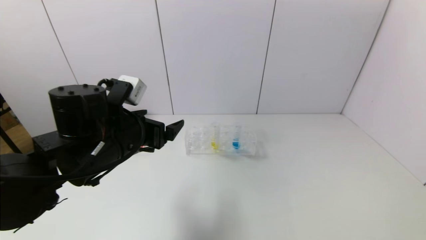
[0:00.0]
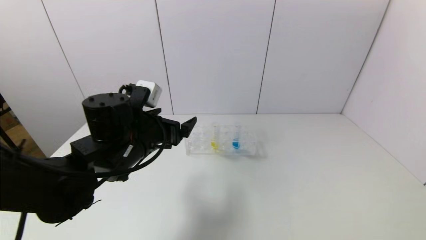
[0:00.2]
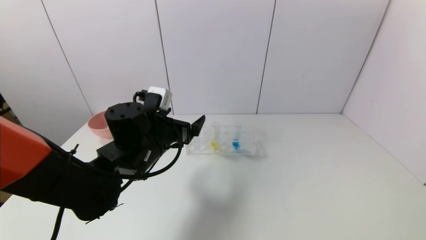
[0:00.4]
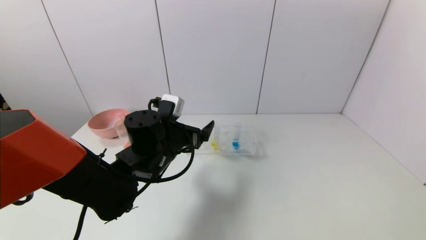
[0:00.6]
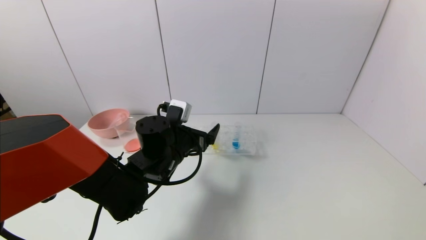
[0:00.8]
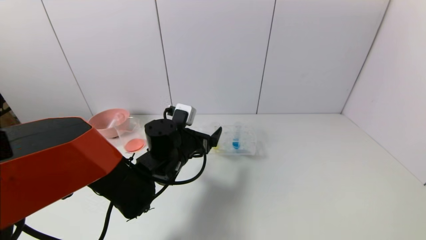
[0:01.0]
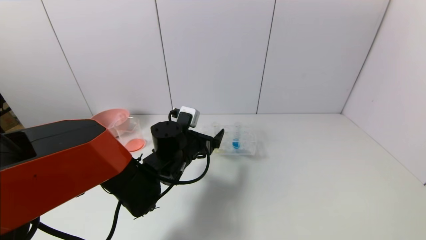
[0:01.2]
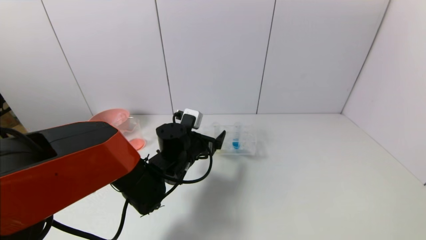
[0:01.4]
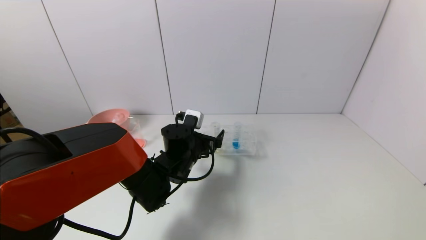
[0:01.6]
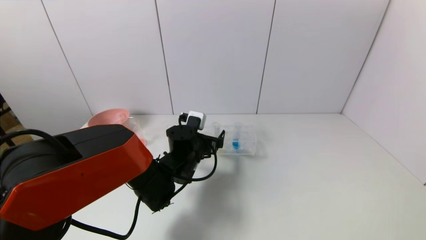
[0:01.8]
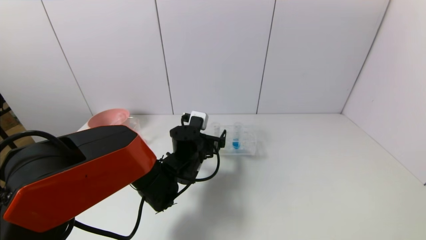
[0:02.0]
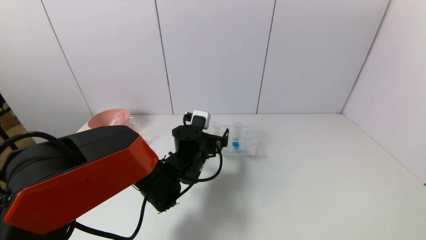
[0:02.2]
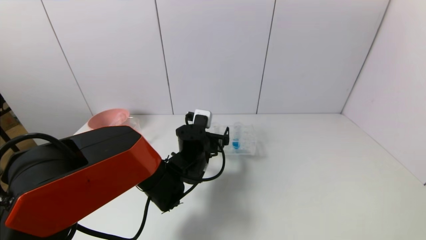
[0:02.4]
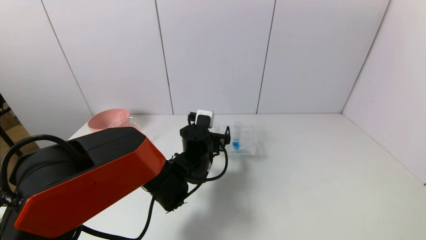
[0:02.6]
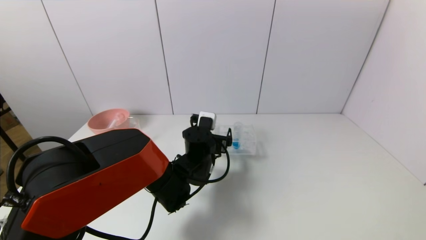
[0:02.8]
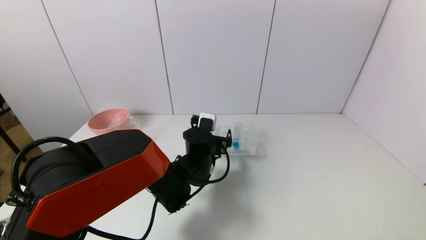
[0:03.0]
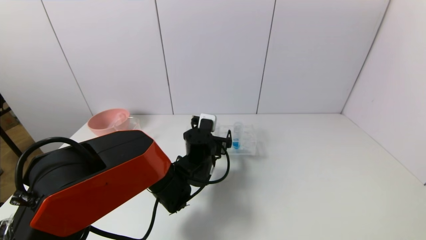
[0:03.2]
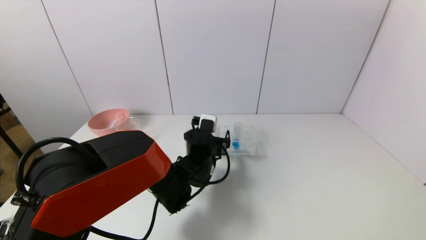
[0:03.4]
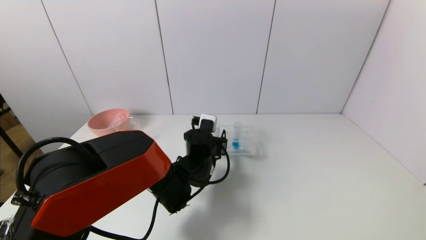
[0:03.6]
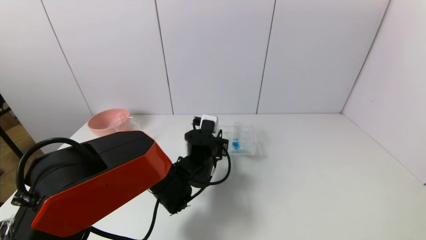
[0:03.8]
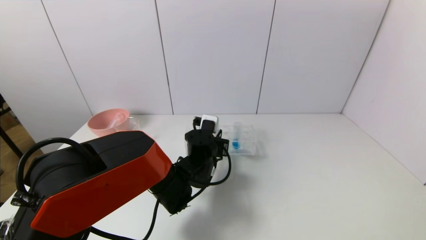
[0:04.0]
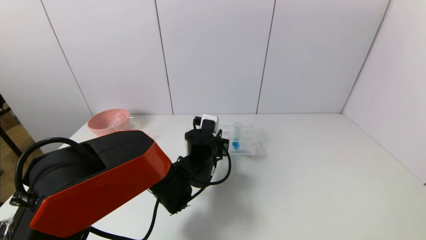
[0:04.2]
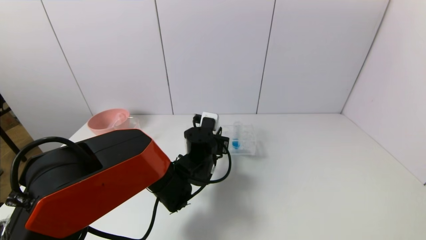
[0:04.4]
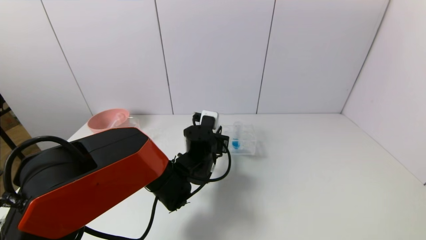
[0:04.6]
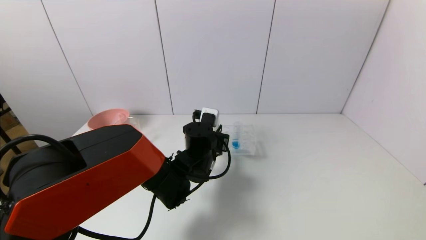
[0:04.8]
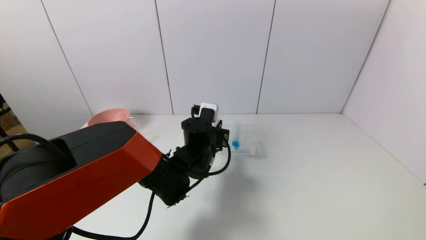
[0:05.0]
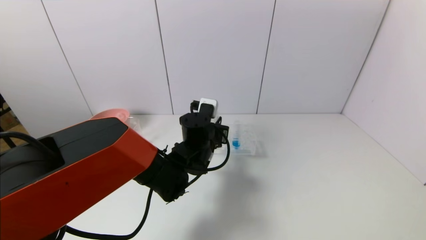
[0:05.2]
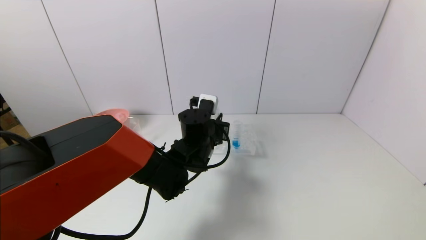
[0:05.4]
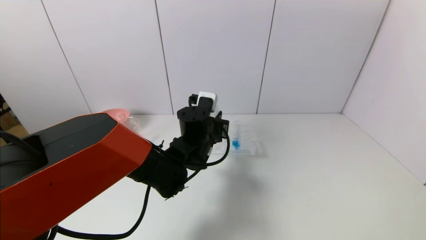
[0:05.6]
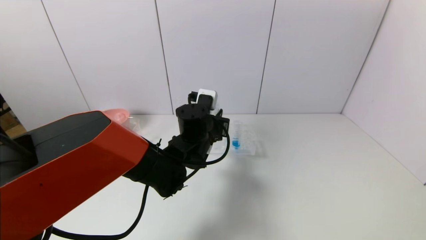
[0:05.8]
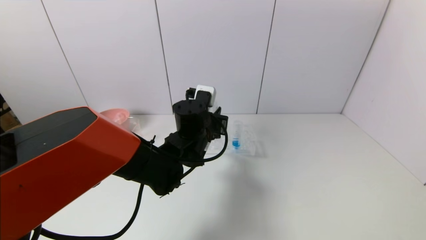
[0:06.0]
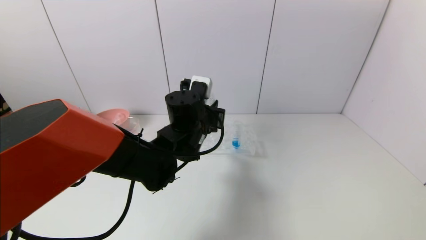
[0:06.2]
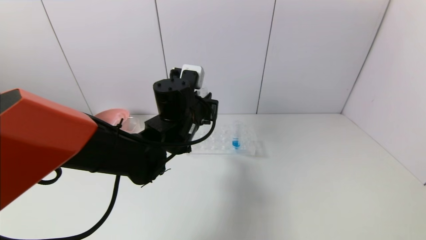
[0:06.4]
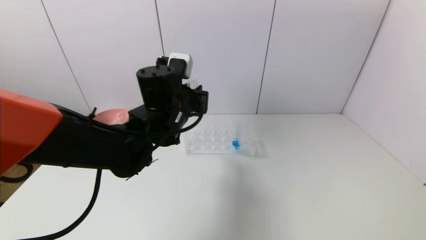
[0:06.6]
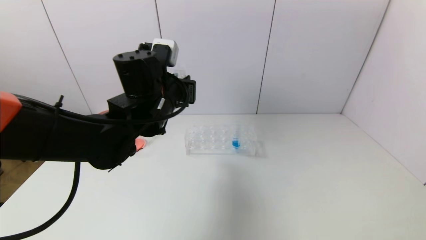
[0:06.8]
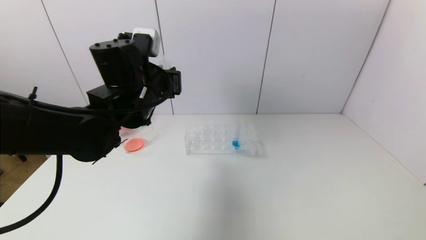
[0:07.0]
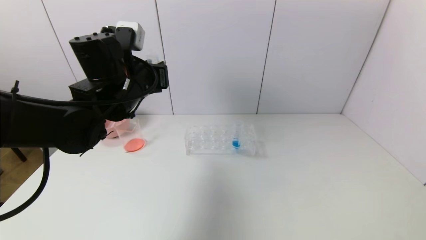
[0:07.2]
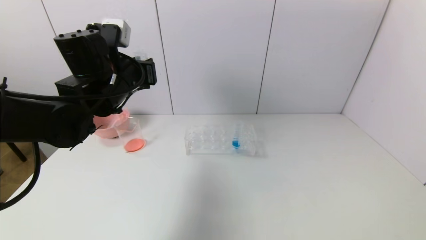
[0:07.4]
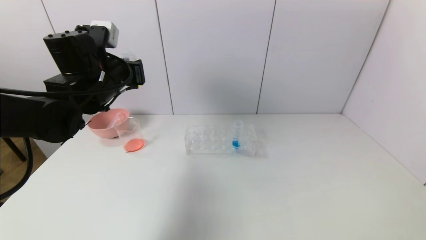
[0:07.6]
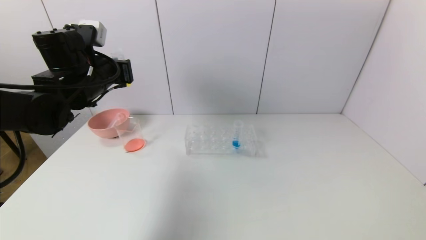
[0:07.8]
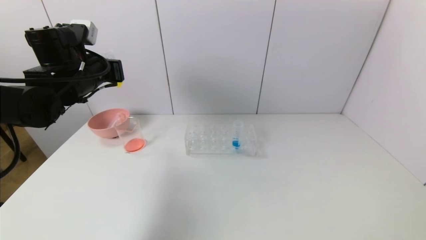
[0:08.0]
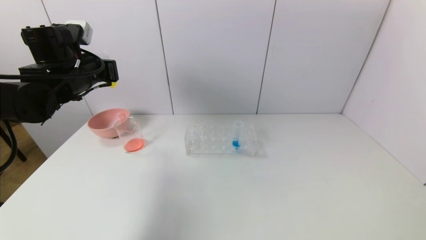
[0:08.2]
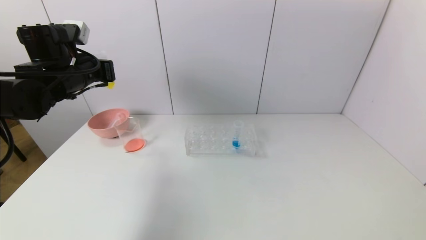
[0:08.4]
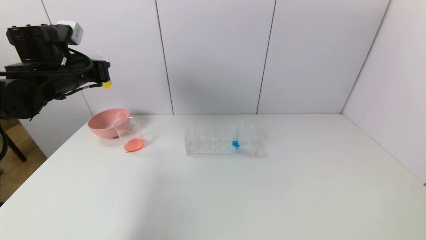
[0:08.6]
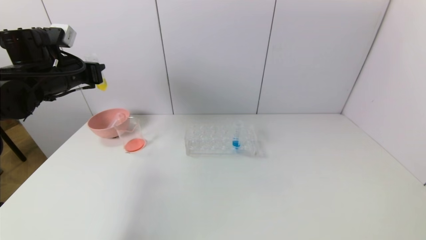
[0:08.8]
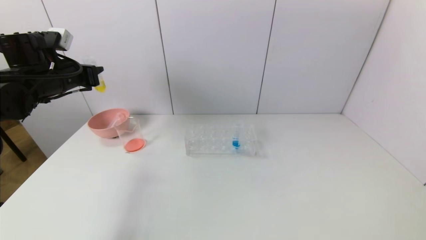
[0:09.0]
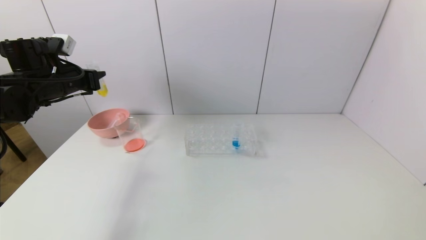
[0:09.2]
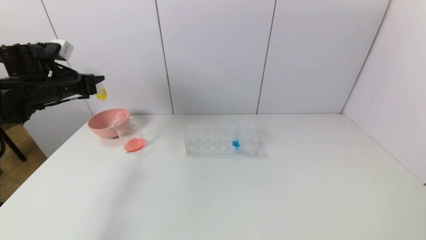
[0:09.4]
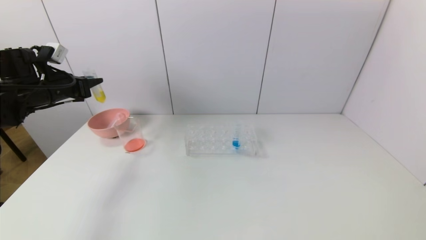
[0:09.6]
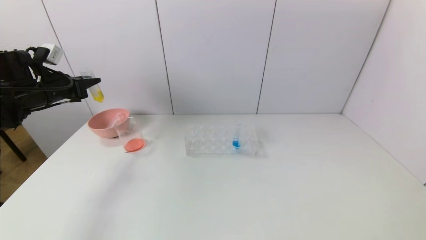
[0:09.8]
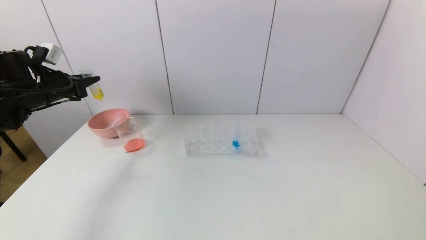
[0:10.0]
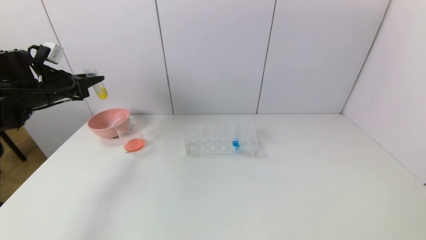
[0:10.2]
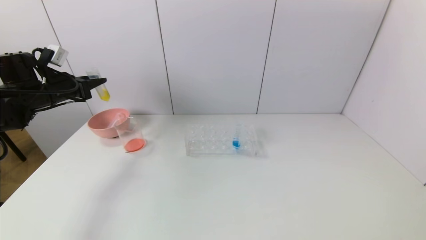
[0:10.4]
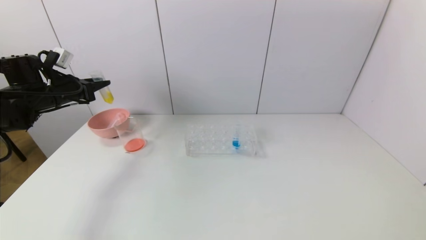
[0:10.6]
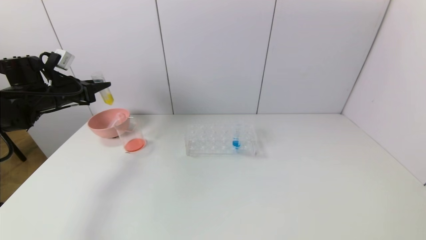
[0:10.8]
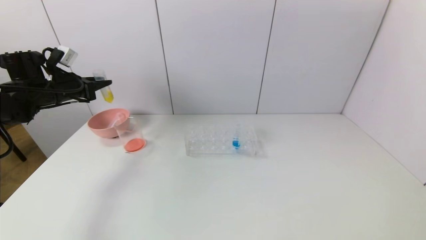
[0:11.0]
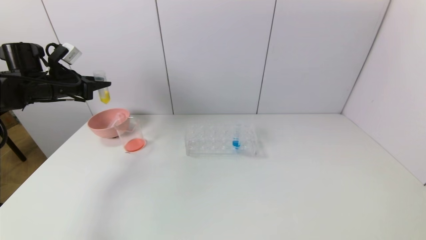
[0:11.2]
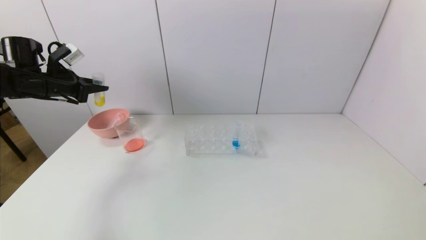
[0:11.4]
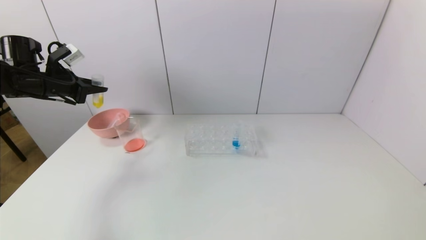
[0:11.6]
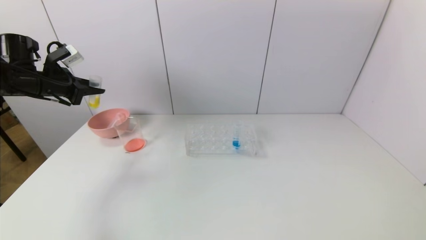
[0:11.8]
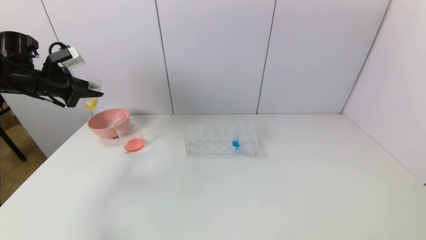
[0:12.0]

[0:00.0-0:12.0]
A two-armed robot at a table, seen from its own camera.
Task of the whole recording: pick up the test tube with yellow pigment and the test tube with red pigment by grippers and pour them into the beaker.
Step, 0:00.0 to 0:04.2: Grasp the yellow reagent with the left gripper.
0:00.0 to 0:01.6: The left gripper heads downward, to the right and forward, covering roughly 20 cm.
0:01.6 to 0:03.0: The grippers stay close to where they were, moving slightly.
0:03.0 to 0:04.4: The left gripper closes its fingers.
0:04.4 to 0:06.0: The left gripper is displaced upward by some 5 cm.
0:06.0 to 0:07.6: The left gripper travels to the left and upward by some 20 cm.
0:07.6 to 0:09.0: The left gripper goes about 15 cm to the left.
0:09.0 to 0:10.4: The left gripper travels to the left by approximately 5 cm.

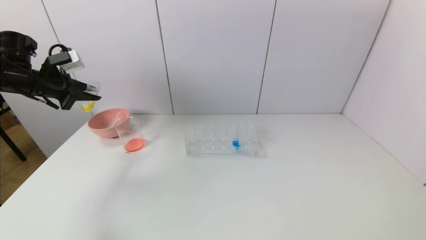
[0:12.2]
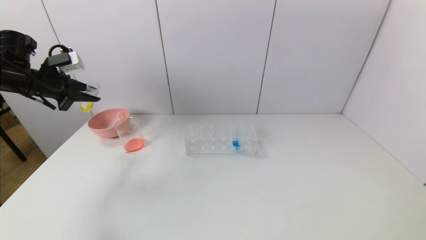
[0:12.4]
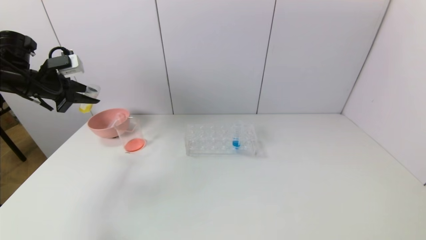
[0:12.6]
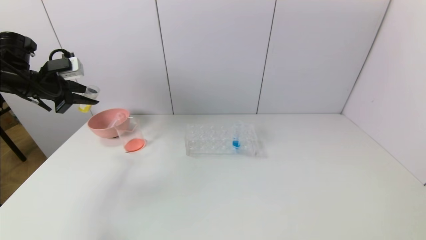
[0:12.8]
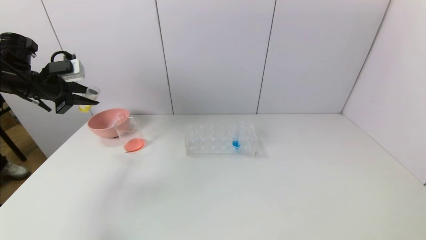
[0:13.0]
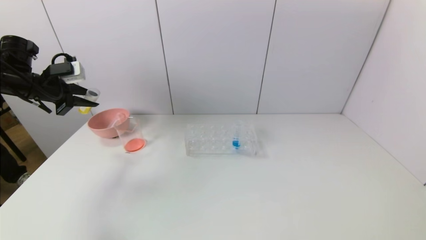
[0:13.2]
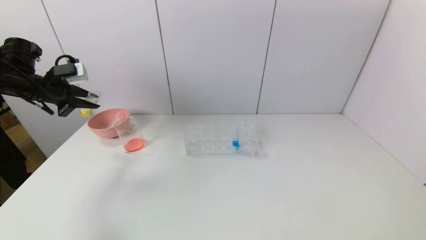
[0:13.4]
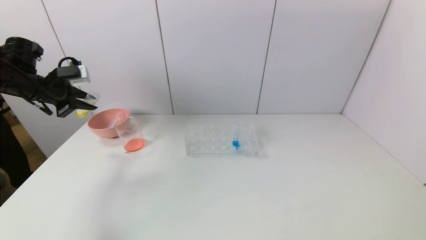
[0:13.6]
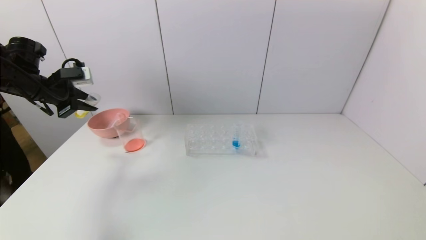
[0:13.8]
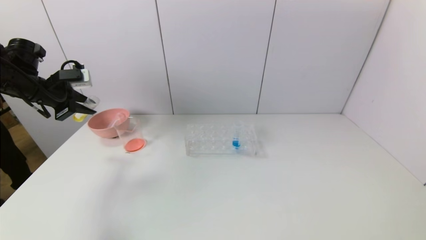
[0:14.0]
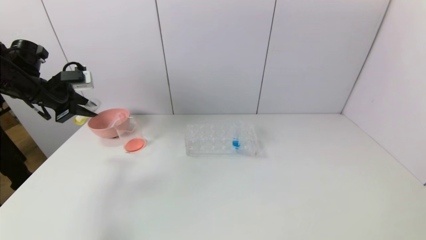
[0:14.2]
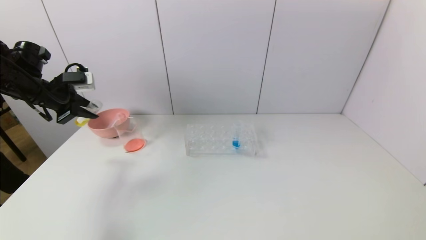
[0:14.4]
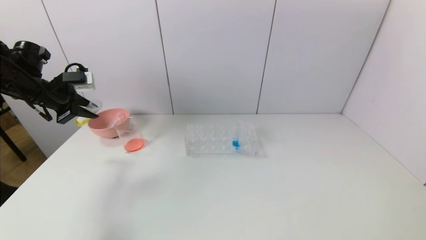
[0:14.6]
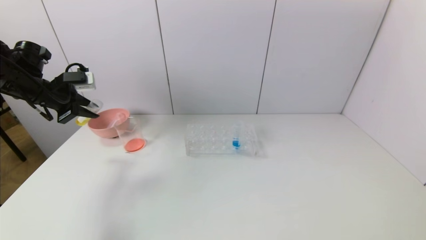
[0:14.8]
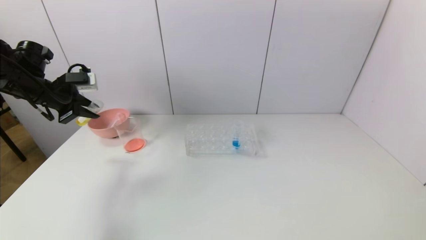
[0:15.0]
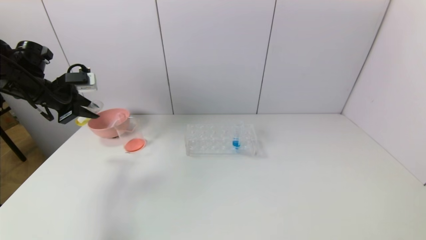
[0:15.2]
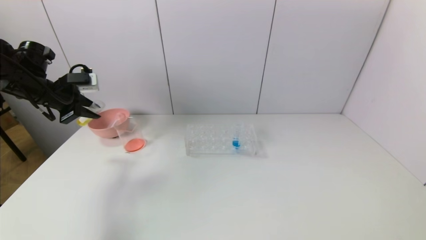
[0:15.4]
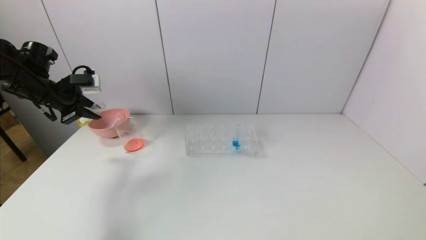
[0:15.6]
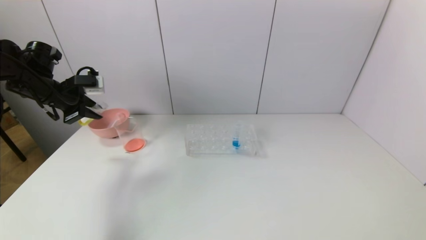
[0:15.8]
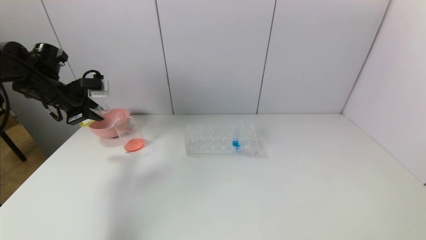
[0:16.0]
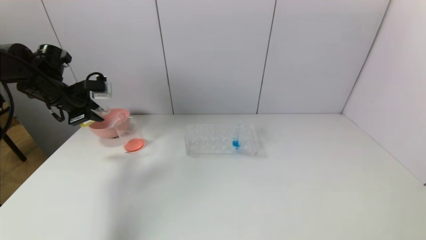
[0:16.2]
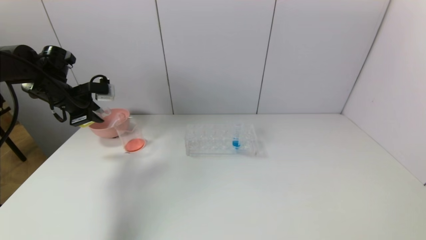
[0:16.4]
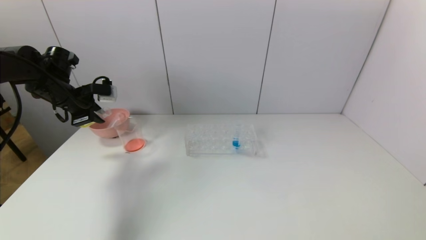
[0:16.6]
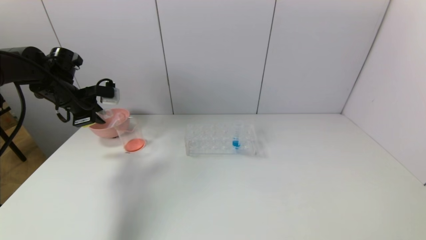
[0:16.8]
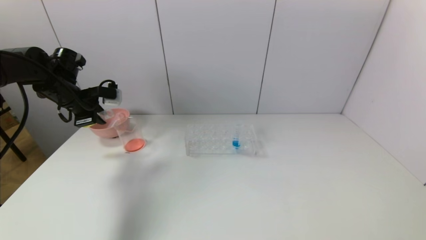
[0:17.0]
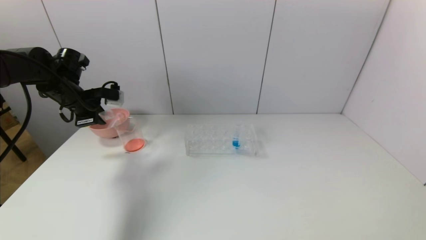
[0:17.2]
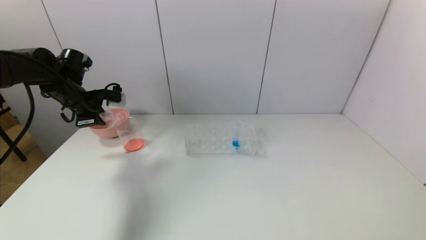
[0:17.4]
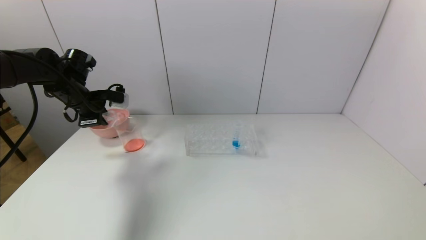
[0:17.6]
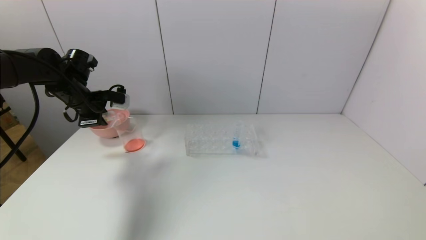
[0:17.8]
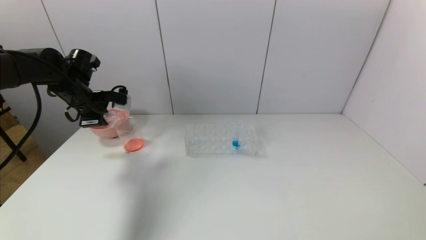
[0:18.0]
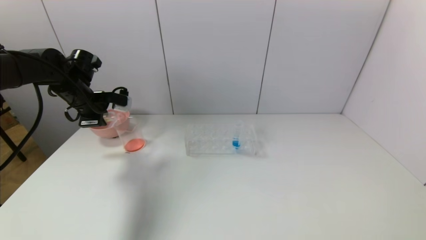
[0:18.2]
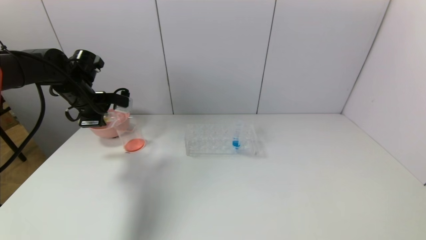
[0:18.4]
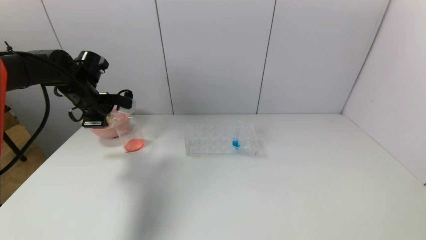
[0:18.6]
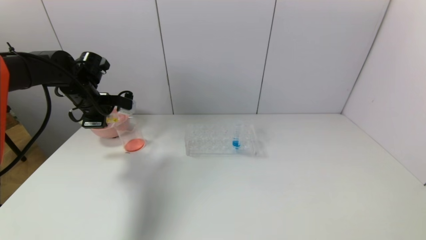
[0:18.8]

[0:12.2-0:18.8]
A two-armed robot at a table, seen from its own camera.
Task of the whole recording: pick up the test tube with yellow pigment and the test tube with red pigment by grippers and pour them into the beaker.
0:12.2 to 0:15.4: The grippers make only small movements.
0:15.4 to 0:17.2: The left gripper changes place by about 5 cm.
0:17.2 to 0:18.8: The grippers stay close to where they were, moving slightly.
